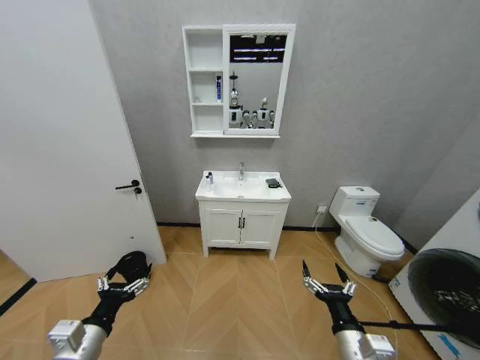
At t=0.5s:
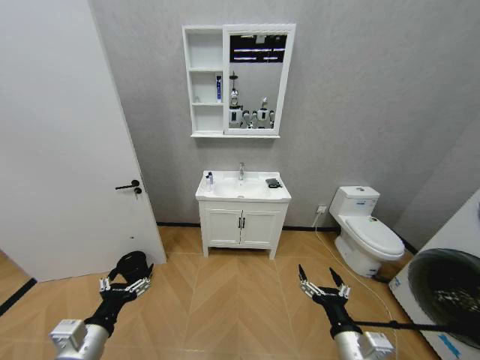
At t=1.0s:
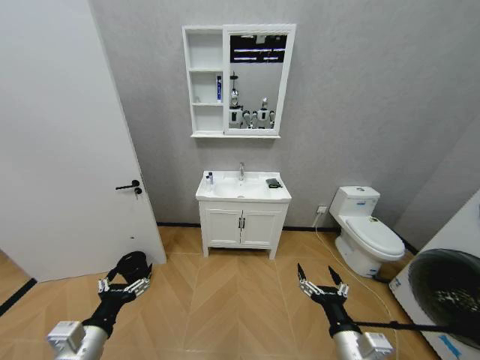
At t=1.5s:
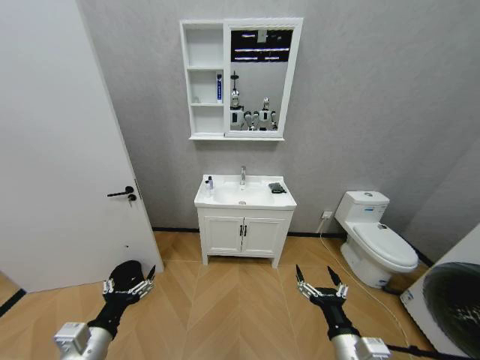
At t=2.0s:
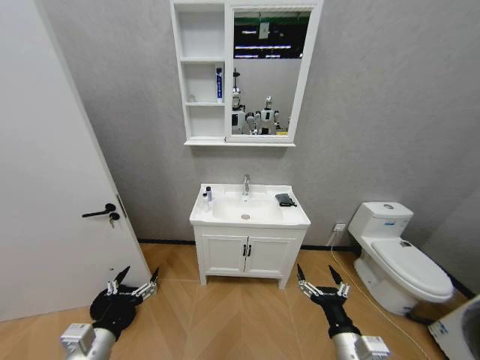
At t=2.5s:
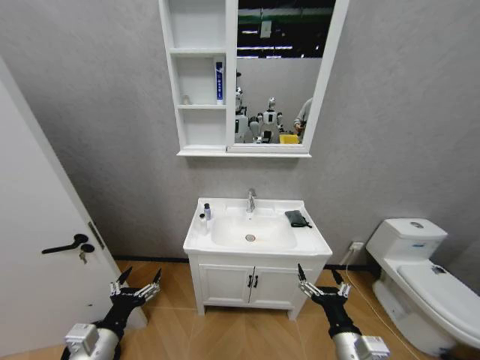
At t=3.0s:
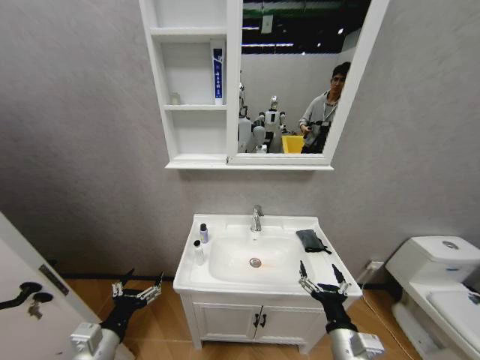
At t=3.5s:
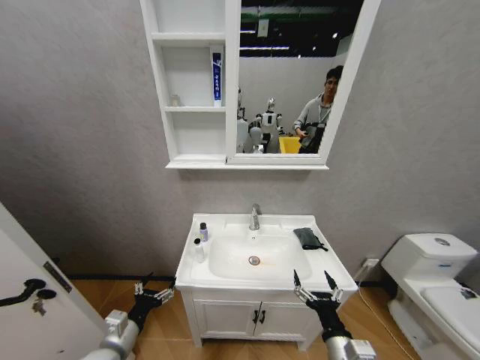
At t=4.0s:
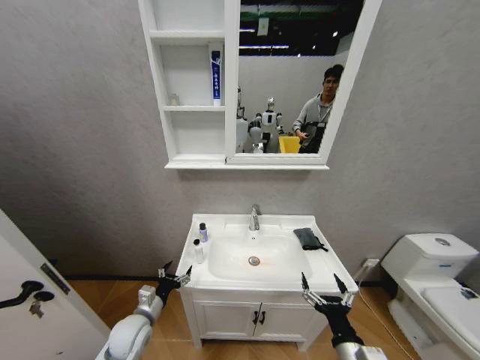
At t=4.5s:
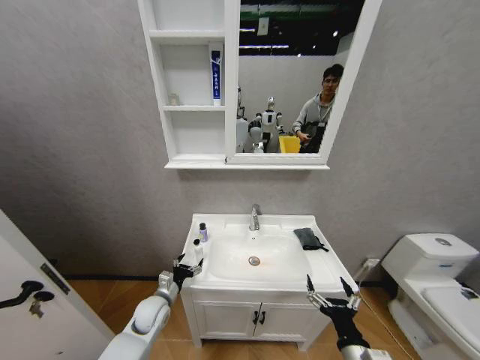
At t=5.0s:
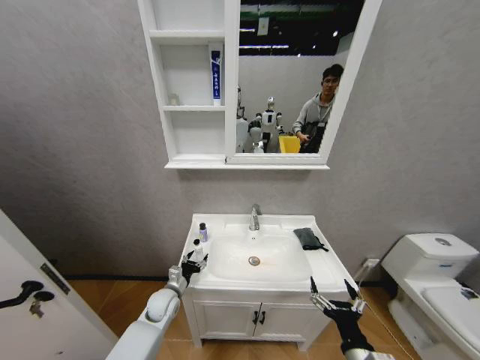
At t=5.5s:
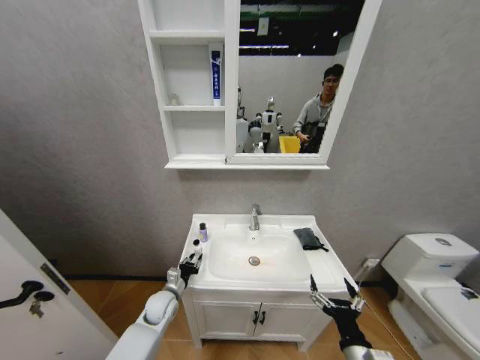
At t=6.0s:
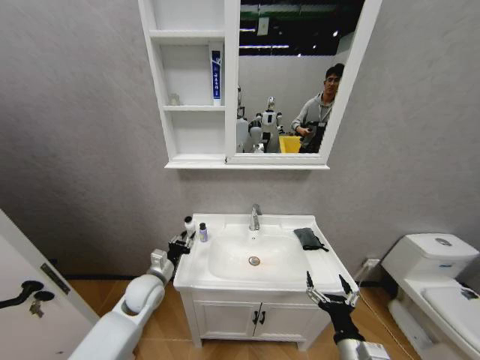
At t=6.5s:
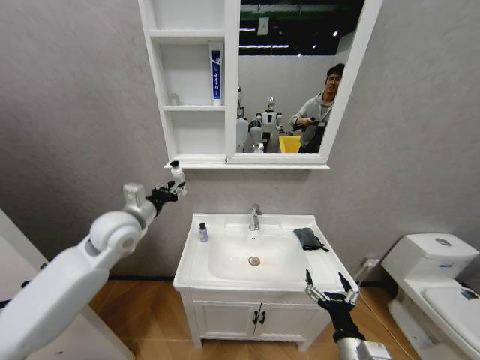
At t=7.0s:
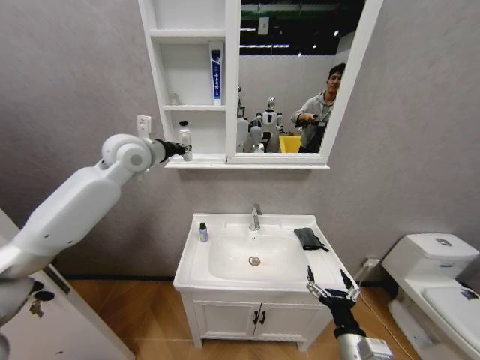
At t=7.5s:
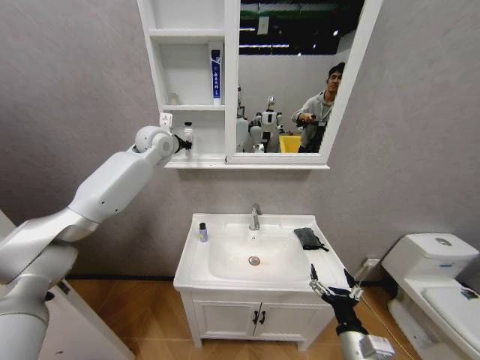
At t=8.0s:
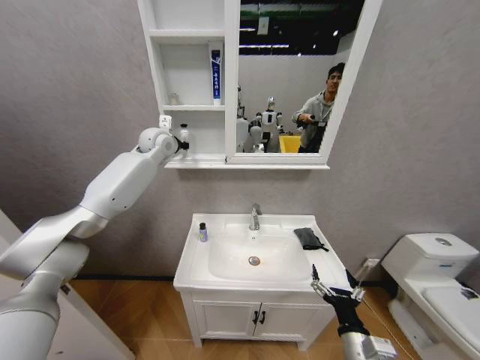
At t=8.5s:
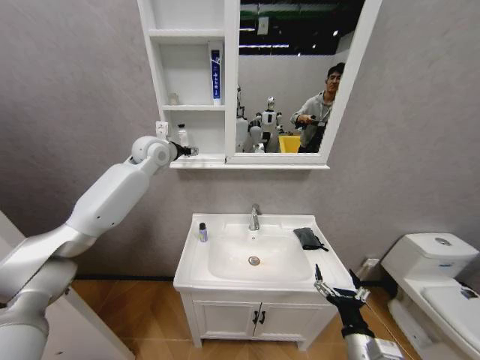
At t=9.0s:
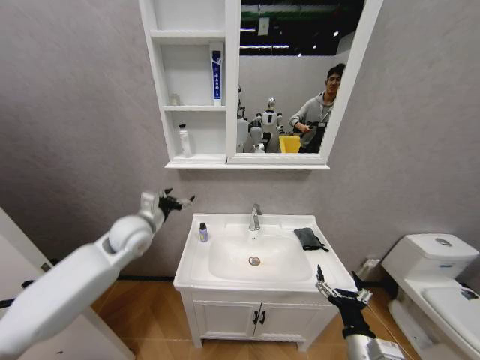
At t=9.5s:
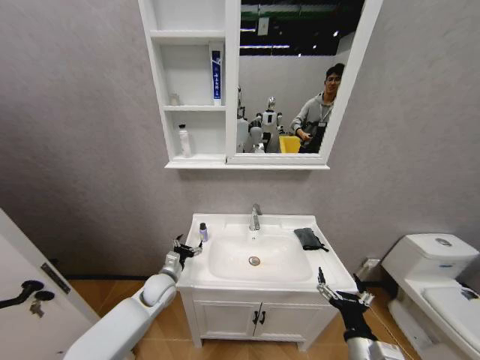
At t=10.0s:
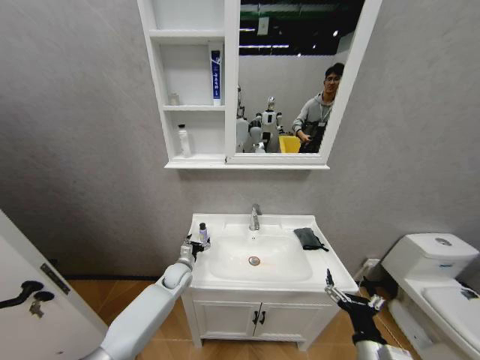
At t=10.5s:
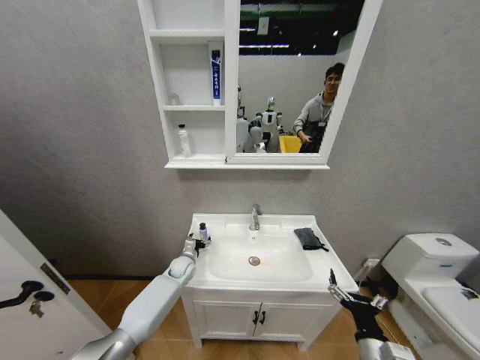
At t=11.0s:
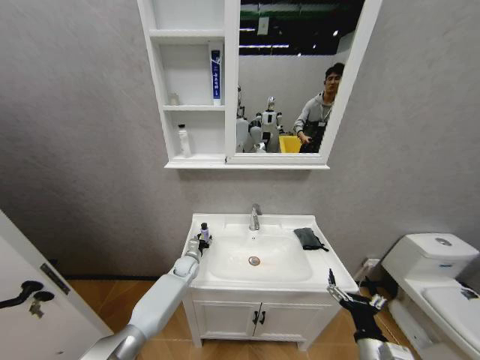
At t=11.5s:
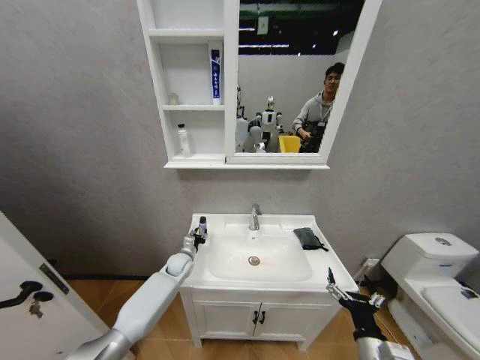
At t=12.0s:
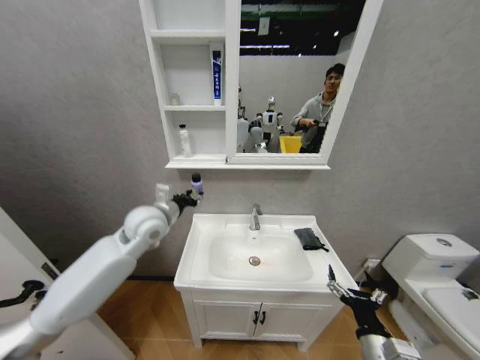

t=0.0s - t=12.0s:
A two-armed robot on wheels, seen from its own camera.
Task of the whole recording: Move facial cleanser and shampoo from washbasin to cabinet, then wipe washbasin with towel.
t=2.0s - t=4.0s: The left gripper goes about 20 cm forward and downward.
t=4.0s - t=6.0s: The left gripper moves forward and upward, some 10 cm, and closes its fingers.
t=6.0s - t=8.0s: The left gripper shifts roughly 40 cm upward and forward.
t=8.0s - t=10.0s: The left gripper is displaced downward and backward by about 50 cm, and opens.
t=10.0s - t=12.0s: The left gripper heads upward, covering approximately 30 cm, and closes up.

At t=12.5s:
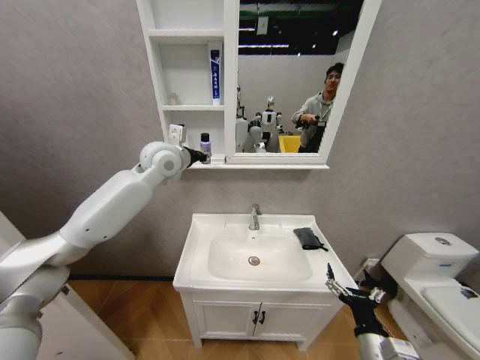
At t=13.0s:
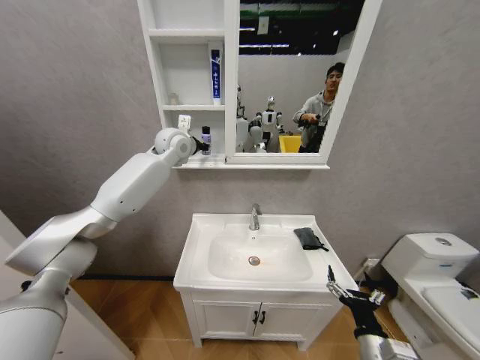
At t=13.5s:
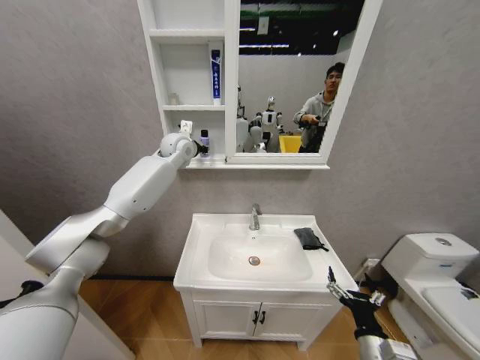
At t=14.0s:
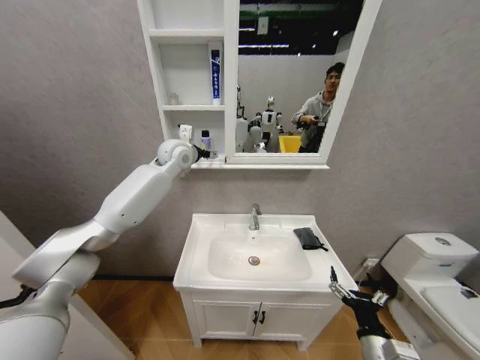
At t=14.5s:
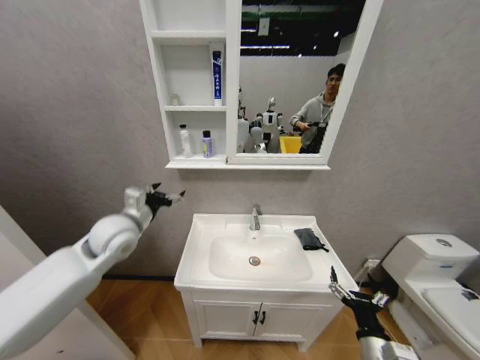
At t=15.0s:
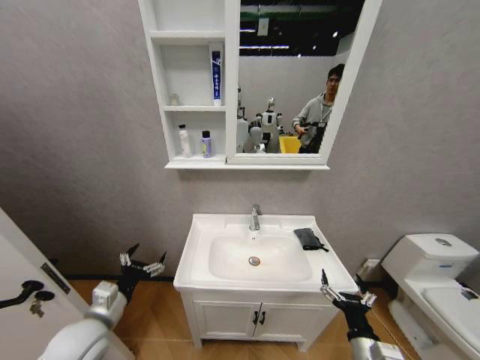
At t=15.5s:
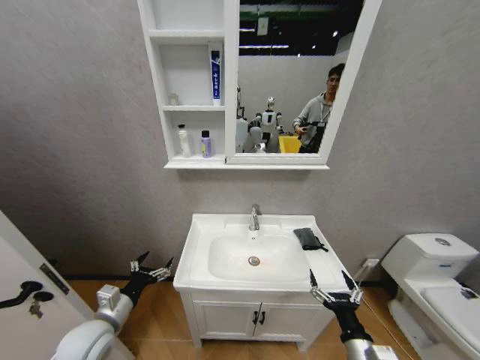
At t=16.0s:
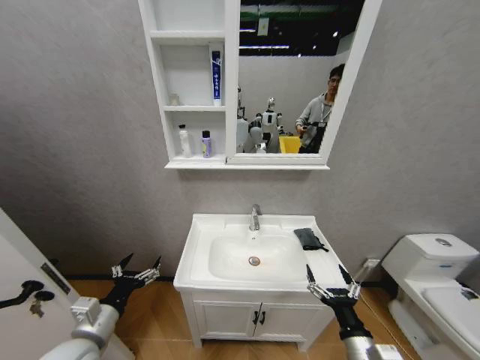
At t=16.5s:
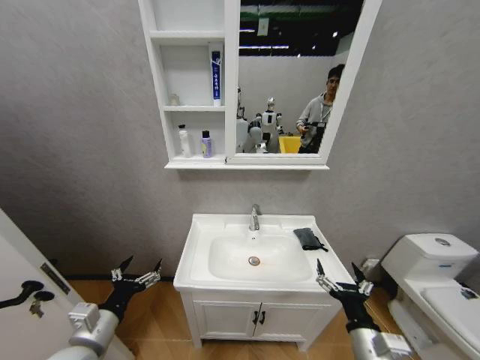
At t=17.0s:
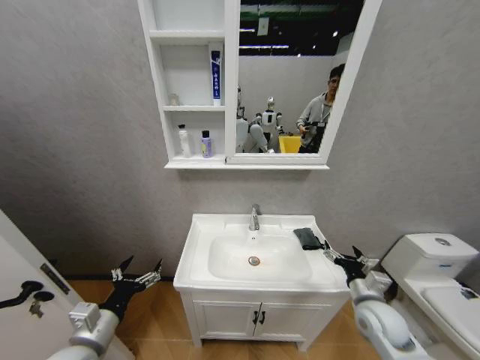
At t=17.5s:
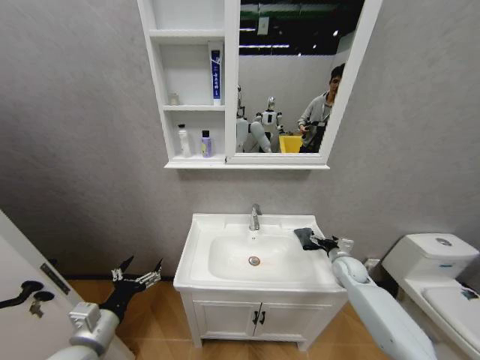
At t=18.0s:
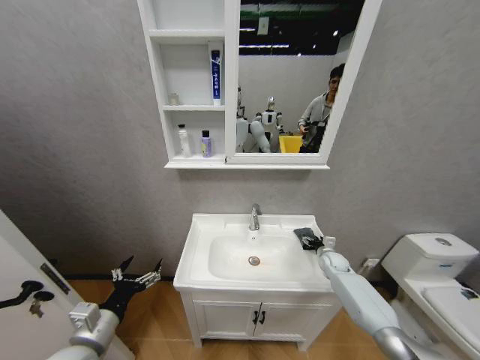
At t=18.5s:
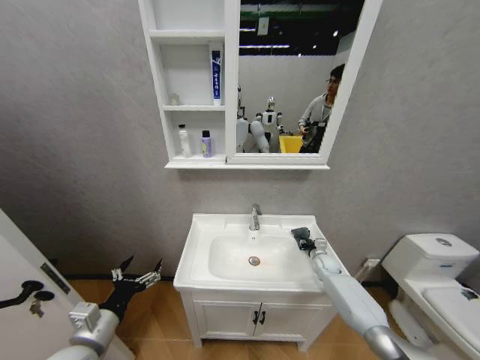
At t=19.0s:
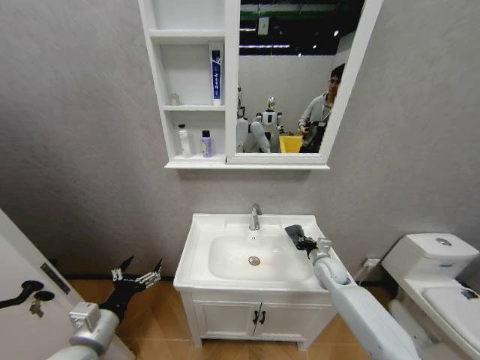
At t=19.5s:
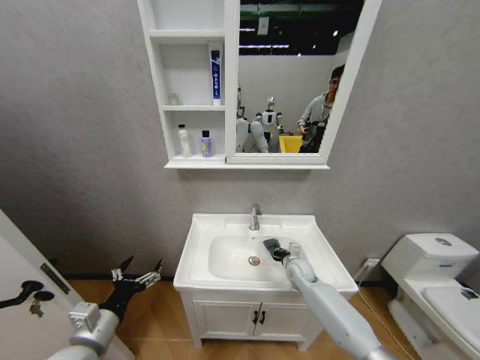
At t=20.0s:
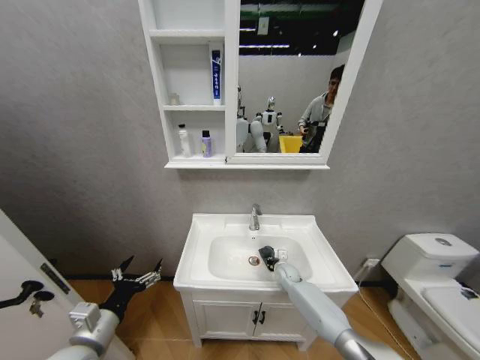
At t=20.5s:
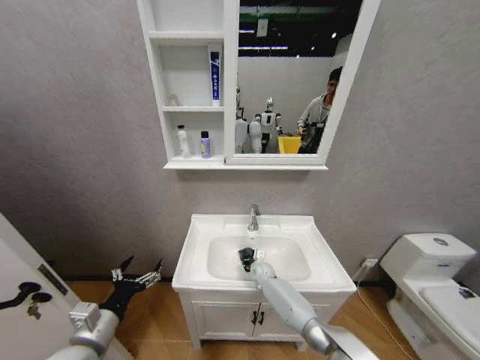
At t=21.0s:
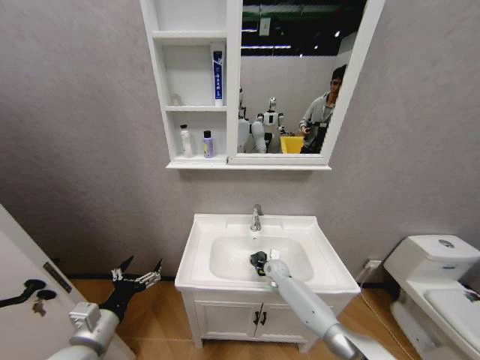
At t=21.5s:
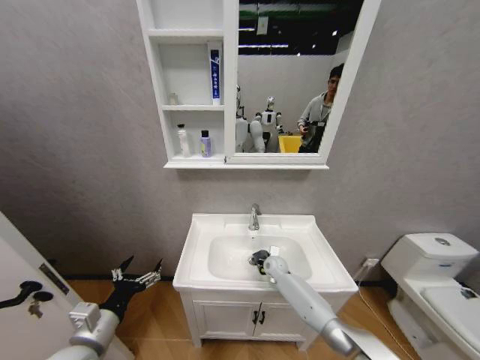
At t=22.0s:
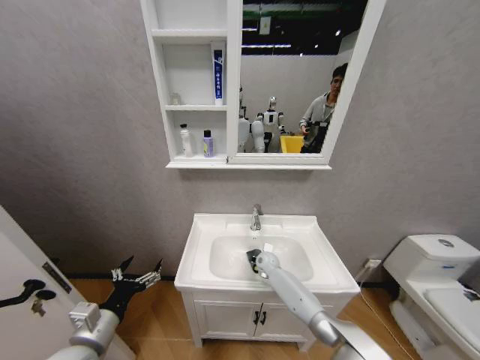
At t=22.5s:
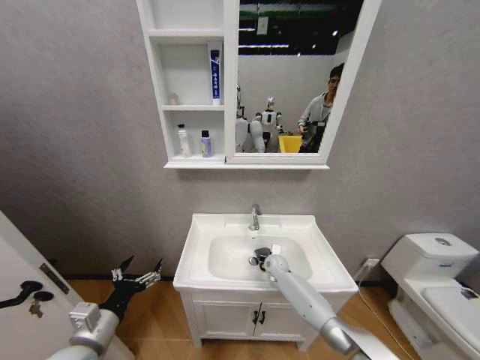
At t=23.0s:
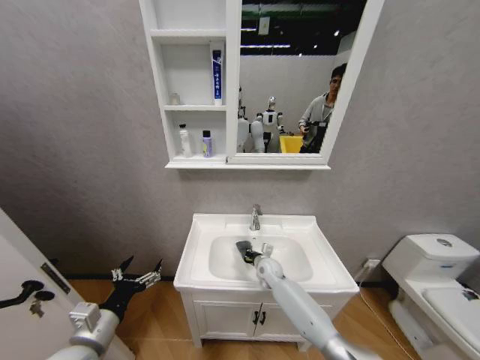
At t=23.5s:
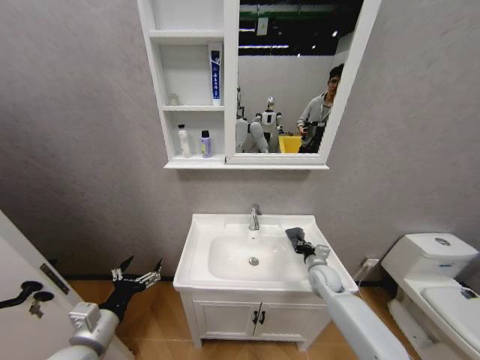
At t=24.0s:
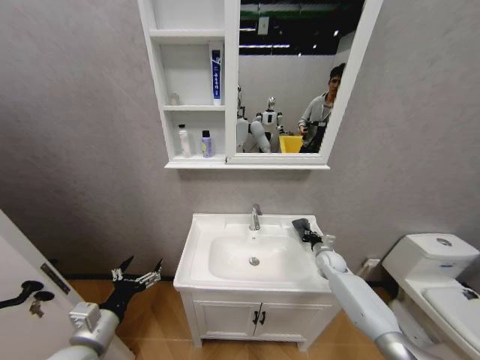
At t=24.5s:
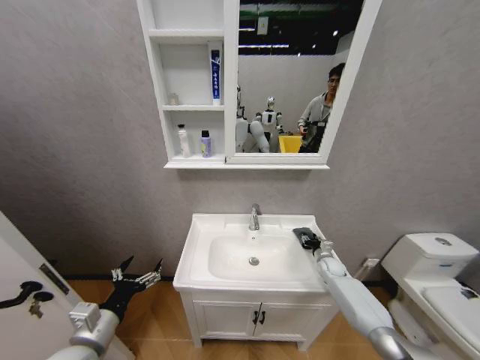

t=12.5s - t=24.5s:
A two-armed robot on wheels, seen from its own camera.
Task of the whole recording: Move facial cleanser and shampoo from washbasin to cabinet, then wipe washbasin with towel.
t=12.5s - t=14.5s: The left gripper heads downward, backward and to the left, covering roughly 20 cm, and opens up.
t=14.5s - t=16.5s: The left gripper travels backward and downward by approximately 25 cm.
t=16.5s - t=18.5s: The right gripper is displaced forward by approximately 35 cm, and closes.
t=18.5s - t=20.5s: The right gripper is displaced to the left by about 25 cm.
t=20.5s - t=22.5s: The right gripper heads to the right, covering some 10 cm.
t=22.5s - t=24.5s: The right gripper moves to the right, some 20 cm, and opens up.

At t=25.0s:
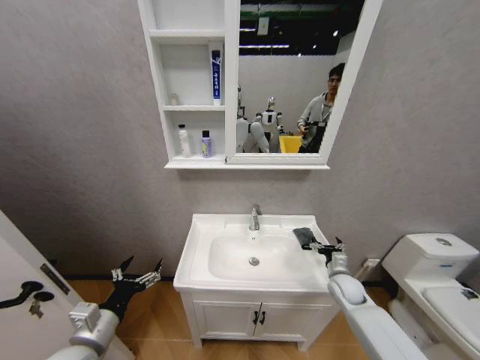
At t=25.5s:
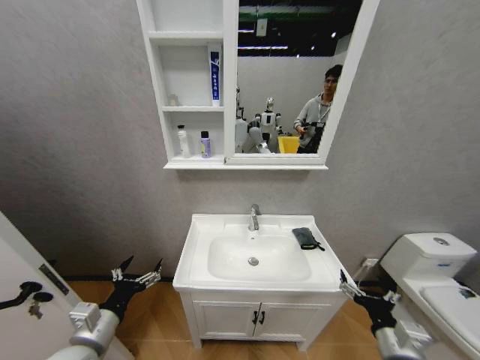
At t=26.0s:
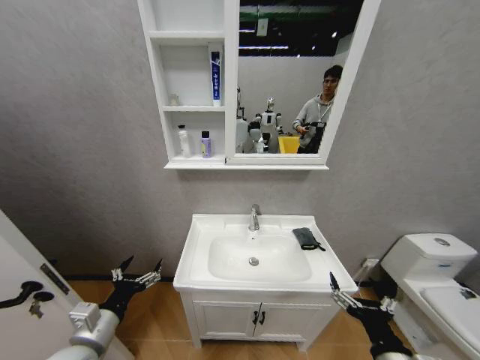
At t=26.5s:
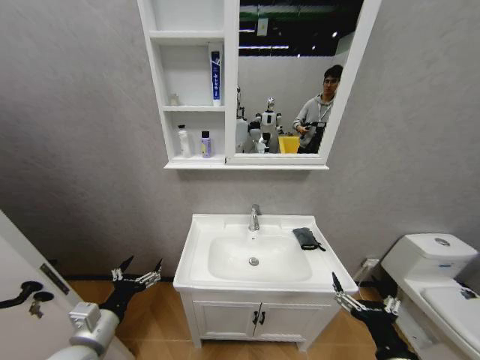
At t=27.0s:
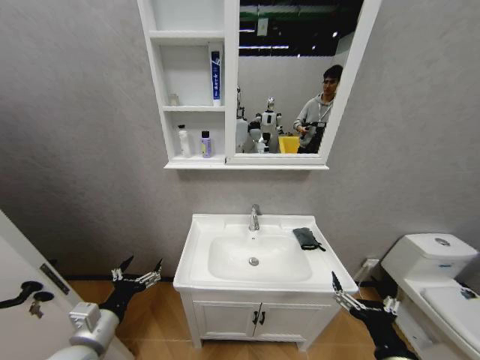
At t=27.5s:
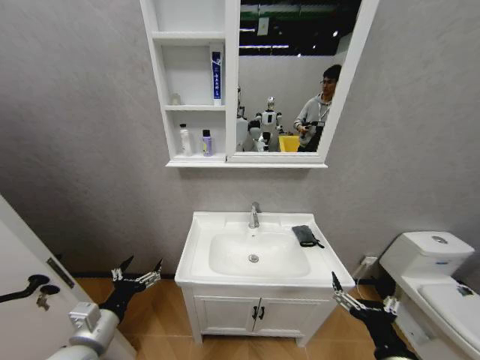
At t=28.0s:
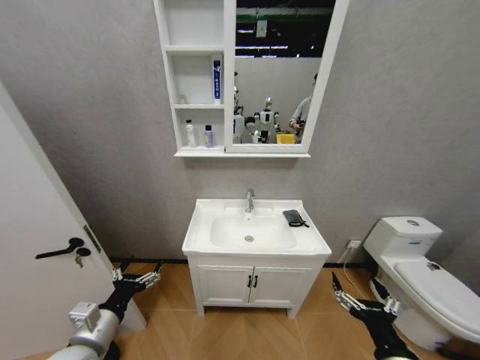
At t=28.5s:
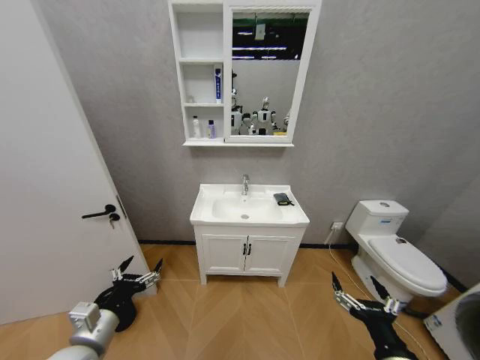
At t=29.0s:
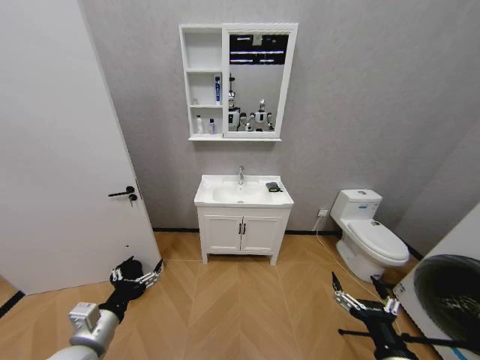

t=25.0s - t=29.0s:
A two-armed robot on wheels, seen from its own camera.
Task of the whole recording: Move facial cleanser and shampoo from washbasin to cabinet, then wipe washbasin with towel.
t=25.0s - t=27.0s: The right gripper heads backward and upward, covering about 35 cm.
